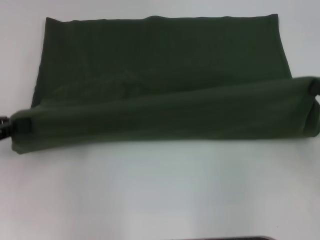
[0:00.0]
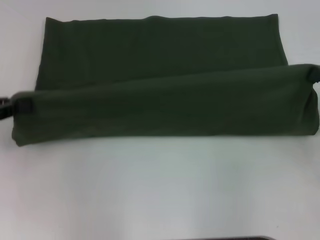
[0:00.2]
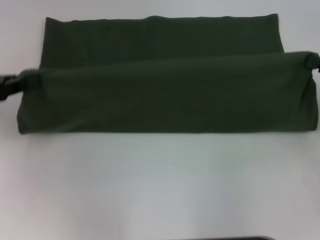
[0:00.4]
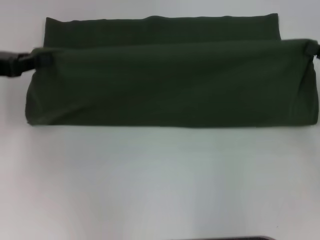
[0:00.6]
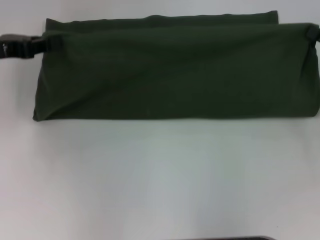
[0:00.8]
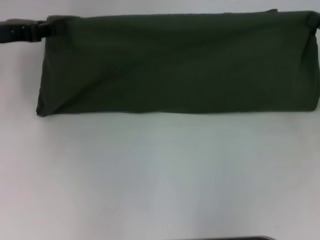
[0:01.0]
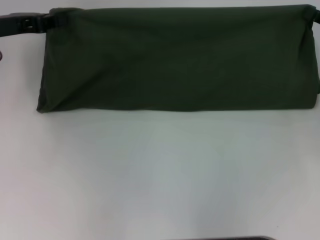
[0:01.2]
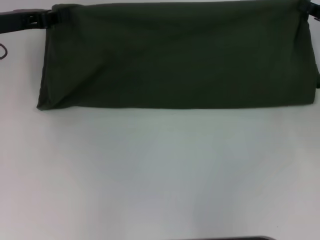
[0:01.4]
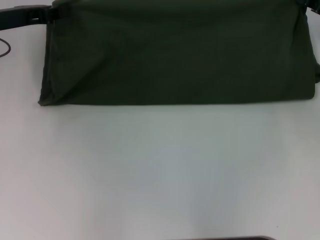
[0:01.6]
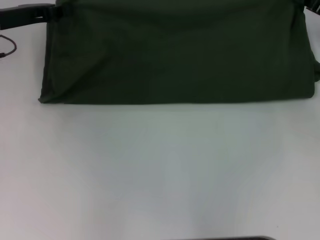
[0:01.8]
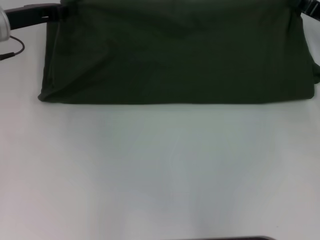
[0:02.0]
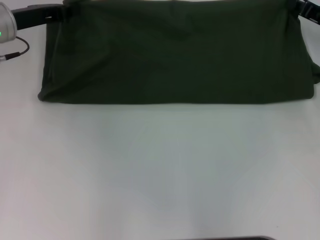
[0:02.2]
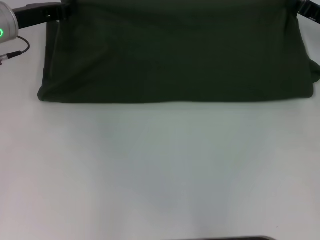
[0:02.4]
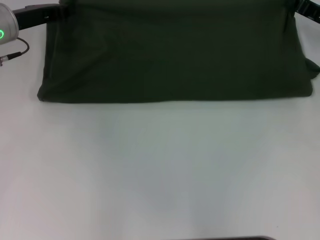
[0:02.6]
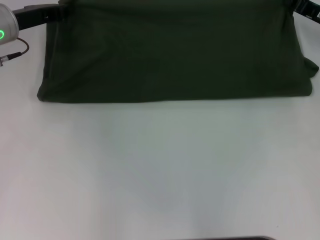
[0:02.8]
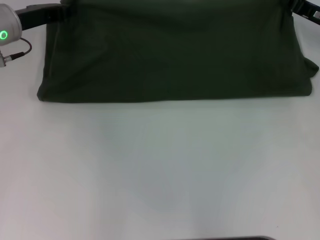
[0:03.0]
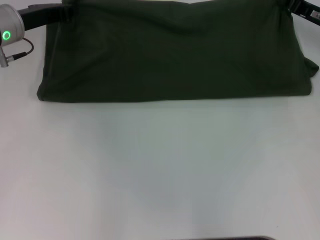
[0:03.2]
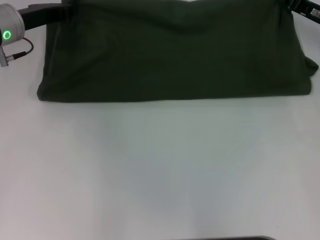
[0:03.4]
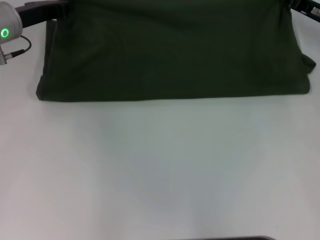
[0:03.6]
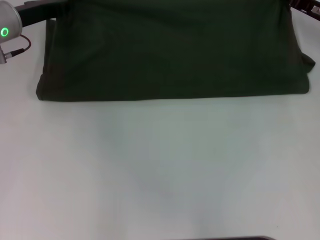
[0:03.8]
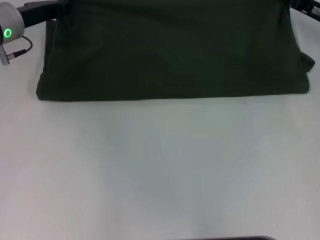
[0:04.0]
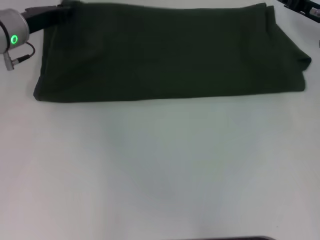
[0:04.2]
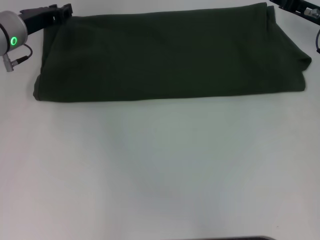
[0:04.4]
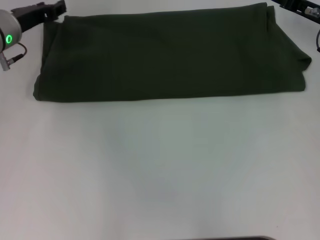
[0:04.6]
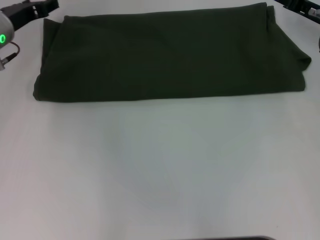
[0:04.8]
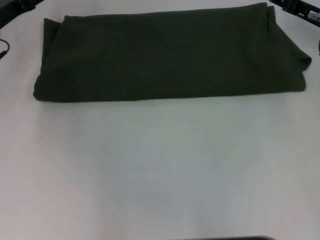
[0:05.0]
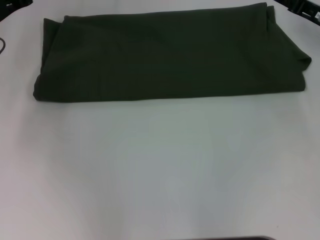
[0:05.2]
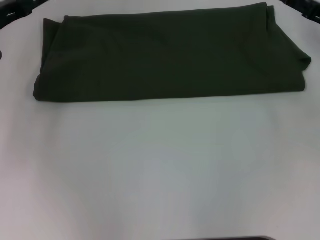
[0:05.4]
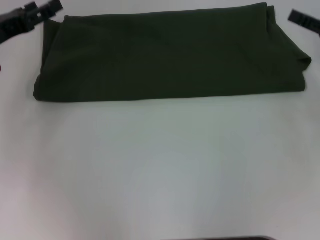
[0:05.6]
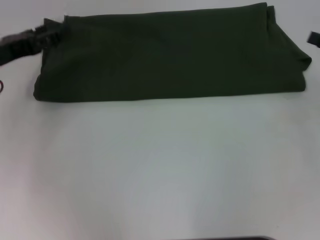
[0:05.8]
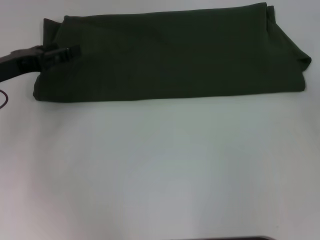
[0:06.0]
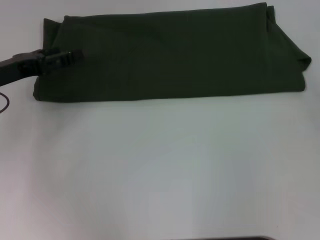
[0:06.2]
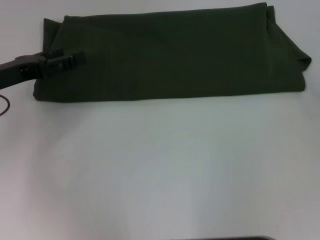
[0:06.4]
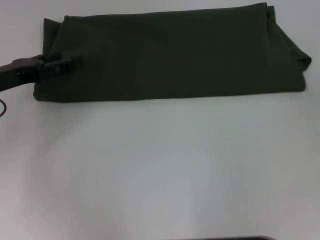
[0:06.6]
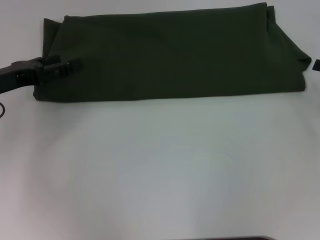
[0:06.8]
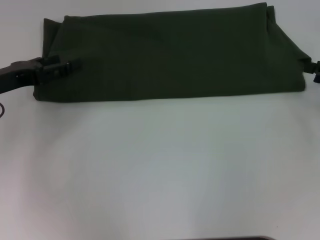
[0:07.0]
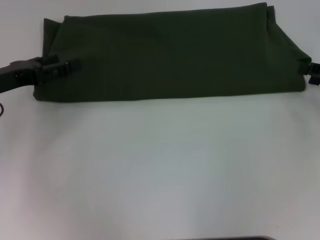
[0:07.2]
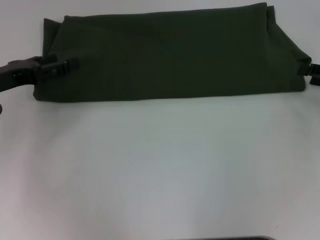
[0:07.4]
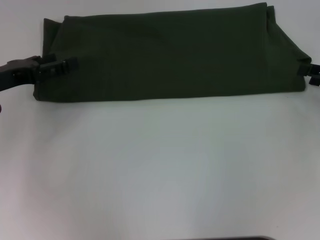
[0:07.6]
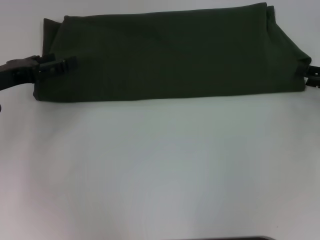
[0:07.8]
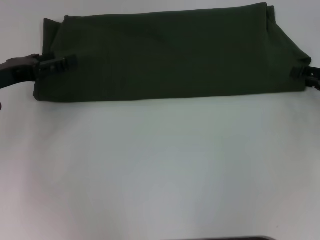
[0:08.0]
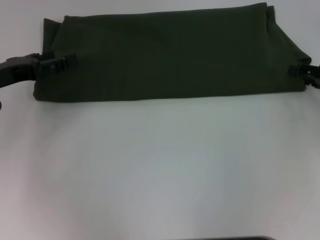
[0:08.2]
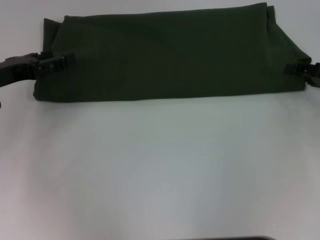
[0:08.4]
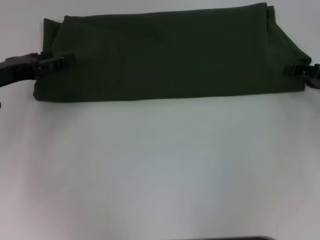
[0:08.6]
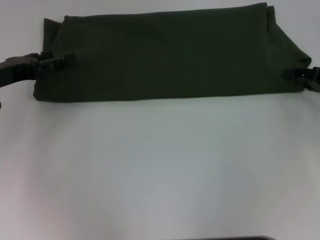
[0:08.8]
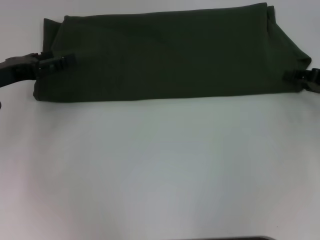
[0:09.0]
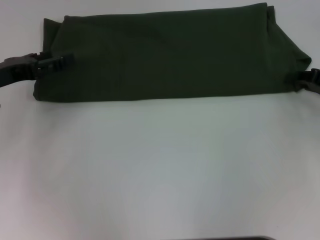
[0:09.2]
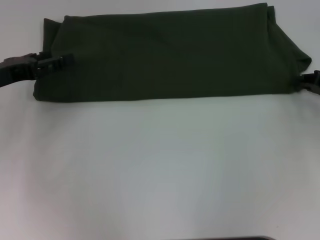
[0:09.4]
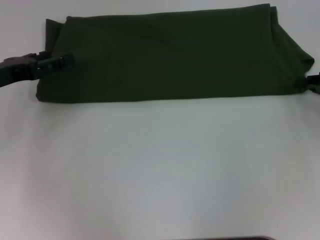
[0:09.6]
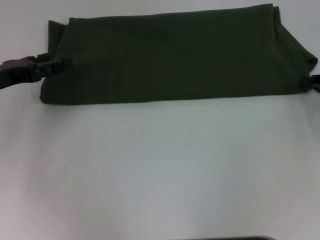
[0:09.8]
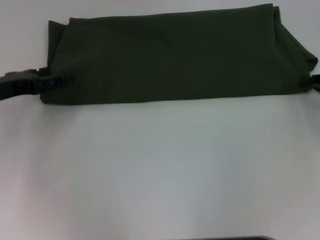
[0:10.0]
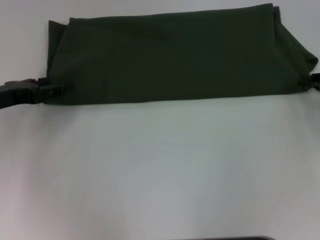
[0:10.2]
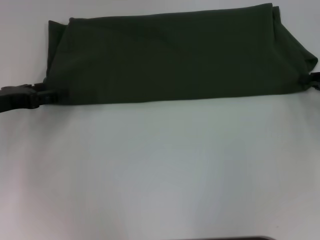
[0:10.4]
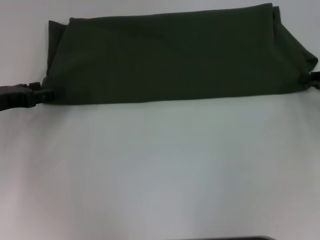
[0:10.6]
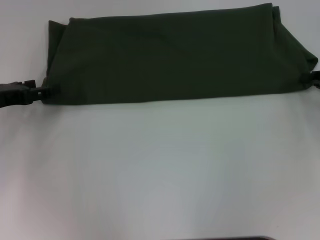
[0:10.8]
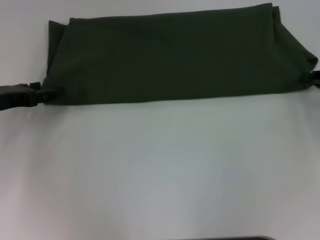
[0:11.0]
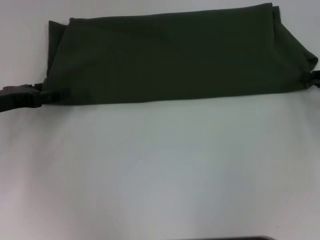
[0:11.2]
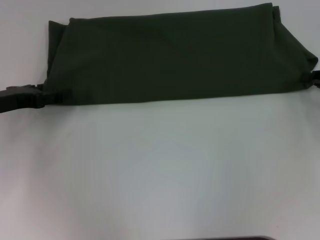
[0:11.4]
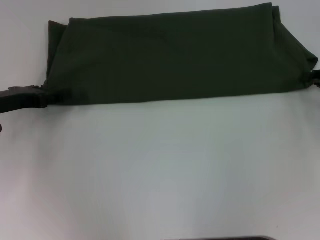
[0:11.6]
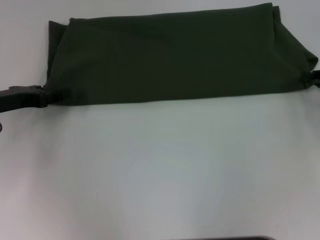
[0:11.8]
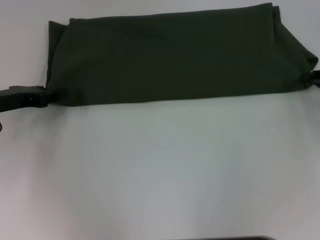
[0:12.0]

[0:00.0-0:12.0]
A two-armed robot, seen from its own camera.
Step, 0:00.0 to 0:04.2: Fold the clothes with your left hand.
Step, 0:00.0 to 0:04.2: Fold the clothes with your right hand.
0:00.0 to 0:01.6: The left gripper heads forward and to the right, covering about 20 cm. The right gripper is displaced forward by roughly 15 cm.
0:01.6 to 0:03.0: The grippers make only small movements.
0:03.0 to 0:04.4: The grippers stay close to where they were, moving slightly.
0:04.4 to 0:06.0: The left gripper travels backward and to the left by about 10 cm, and opens. Meanwhile the right gripper is displaced backward and to the right by some 15 cm, and opens up.
0:07.6 to 0:09.0: The grippers move only a little.
0:09.0 to 0:10.4: The right gripper closes up.

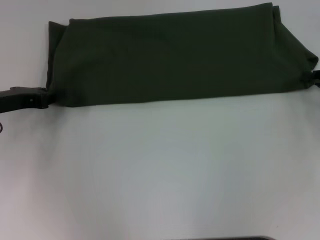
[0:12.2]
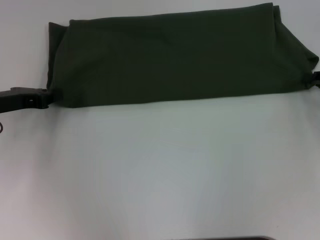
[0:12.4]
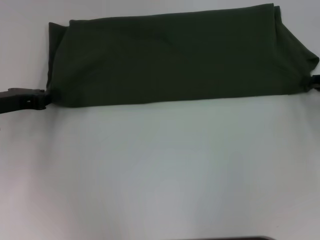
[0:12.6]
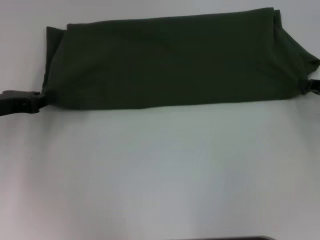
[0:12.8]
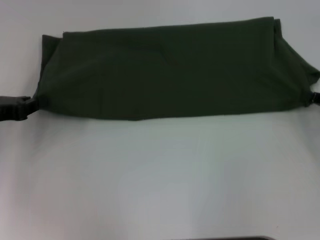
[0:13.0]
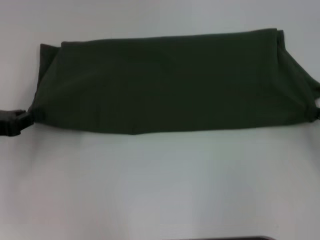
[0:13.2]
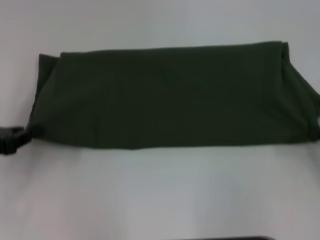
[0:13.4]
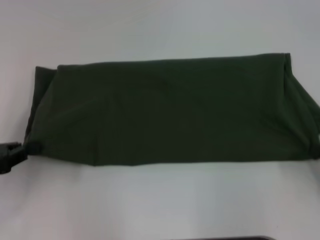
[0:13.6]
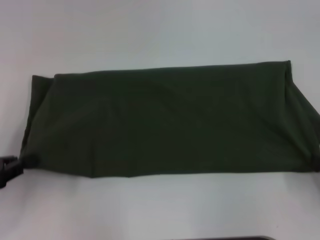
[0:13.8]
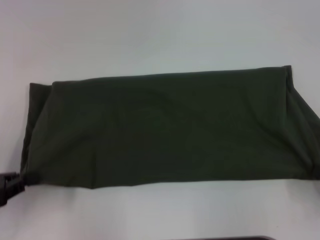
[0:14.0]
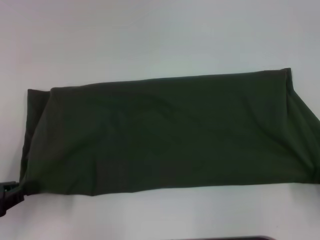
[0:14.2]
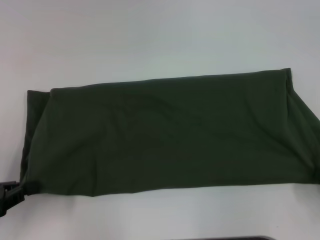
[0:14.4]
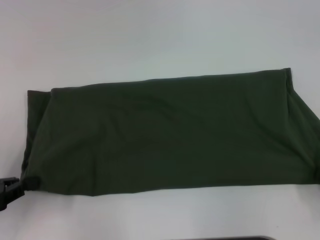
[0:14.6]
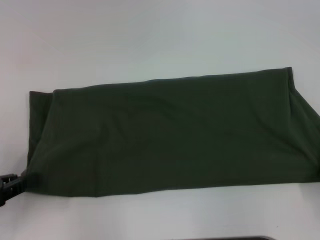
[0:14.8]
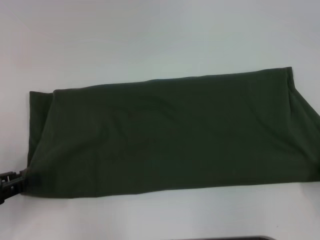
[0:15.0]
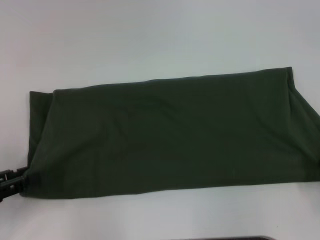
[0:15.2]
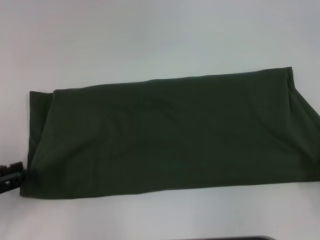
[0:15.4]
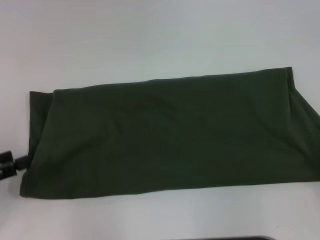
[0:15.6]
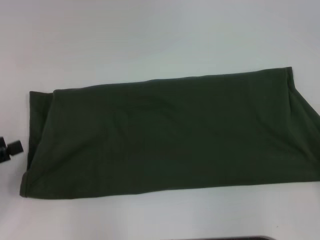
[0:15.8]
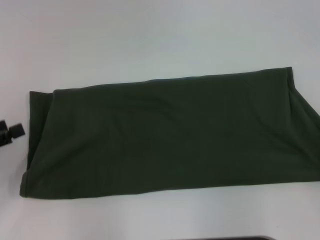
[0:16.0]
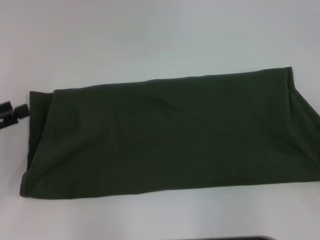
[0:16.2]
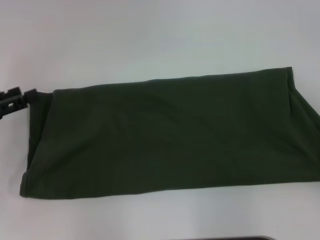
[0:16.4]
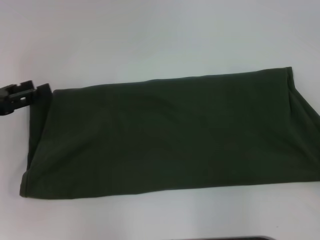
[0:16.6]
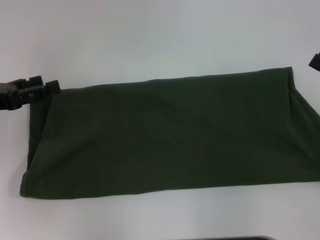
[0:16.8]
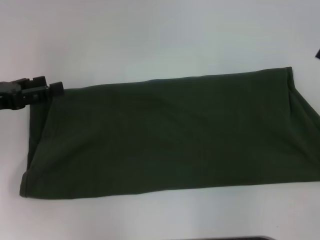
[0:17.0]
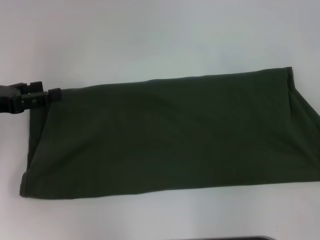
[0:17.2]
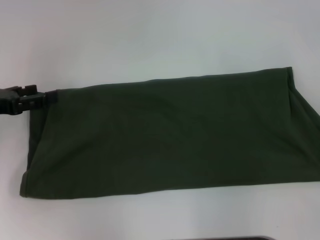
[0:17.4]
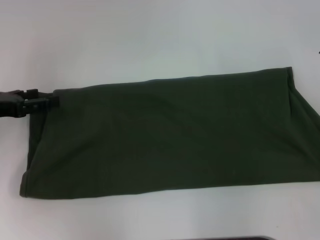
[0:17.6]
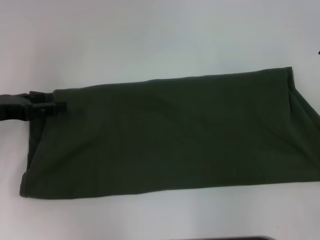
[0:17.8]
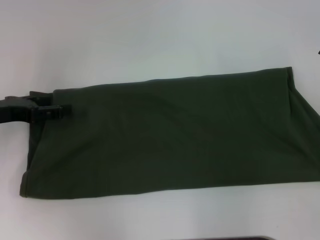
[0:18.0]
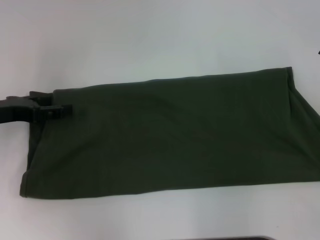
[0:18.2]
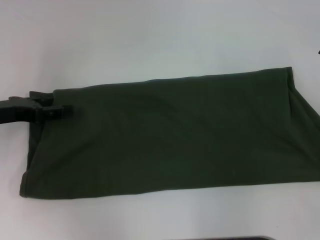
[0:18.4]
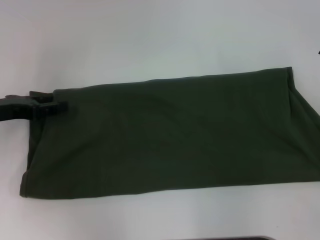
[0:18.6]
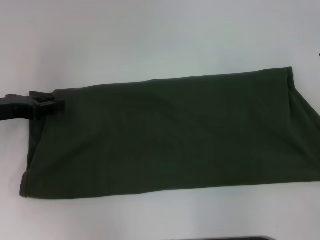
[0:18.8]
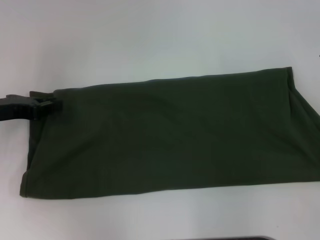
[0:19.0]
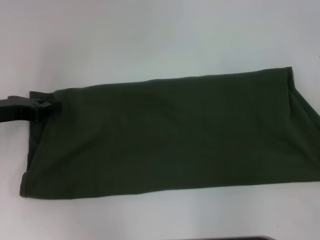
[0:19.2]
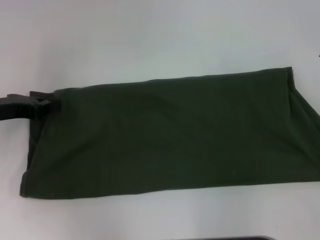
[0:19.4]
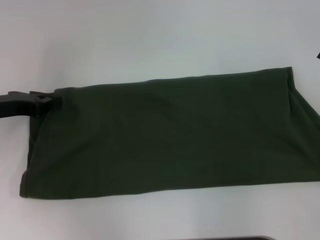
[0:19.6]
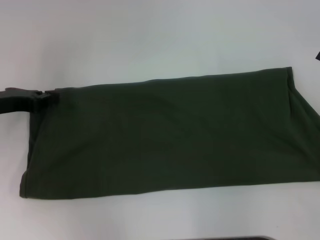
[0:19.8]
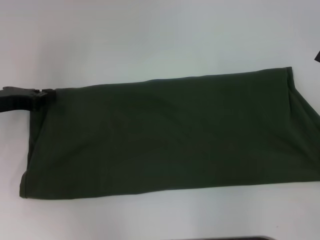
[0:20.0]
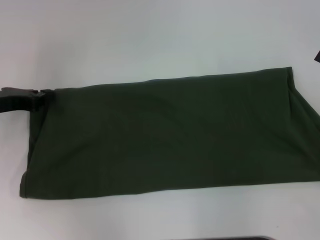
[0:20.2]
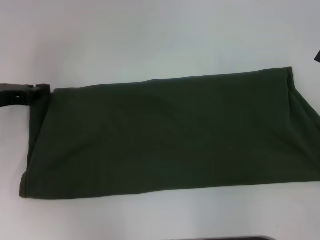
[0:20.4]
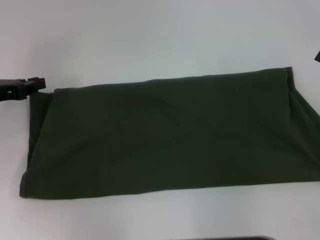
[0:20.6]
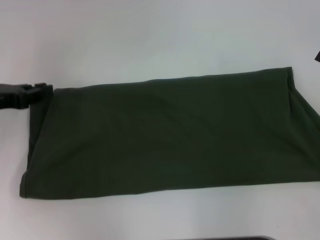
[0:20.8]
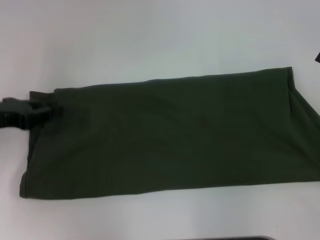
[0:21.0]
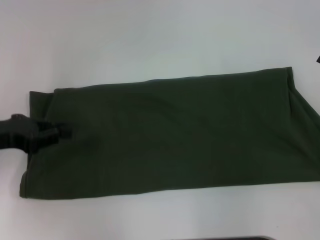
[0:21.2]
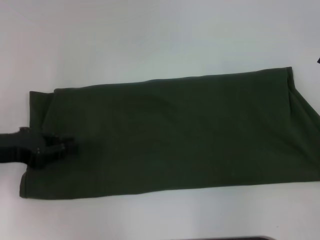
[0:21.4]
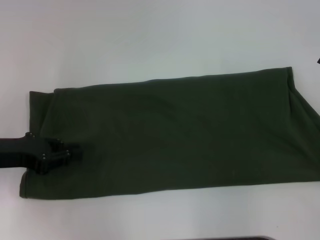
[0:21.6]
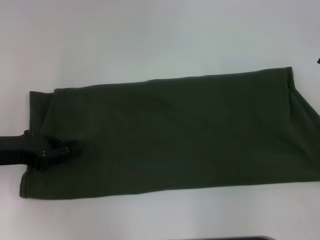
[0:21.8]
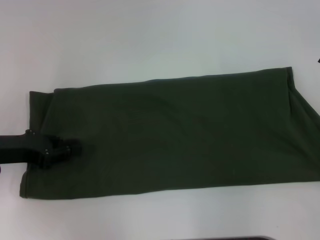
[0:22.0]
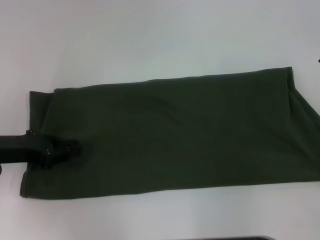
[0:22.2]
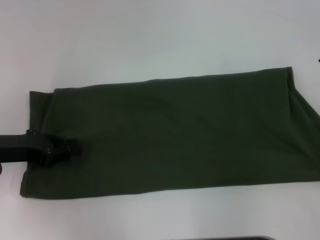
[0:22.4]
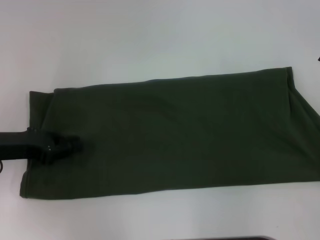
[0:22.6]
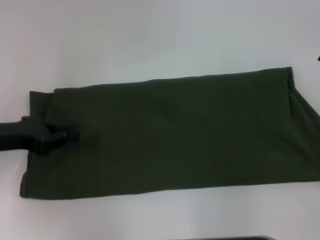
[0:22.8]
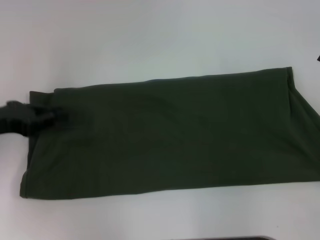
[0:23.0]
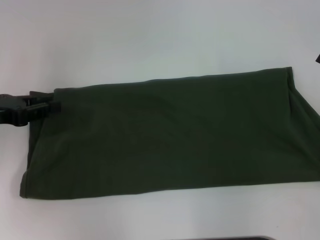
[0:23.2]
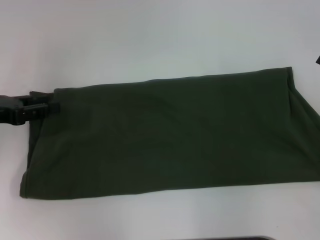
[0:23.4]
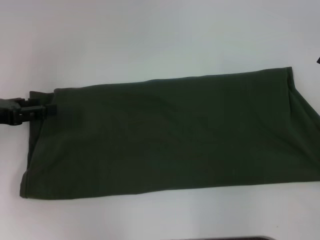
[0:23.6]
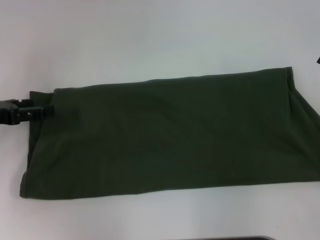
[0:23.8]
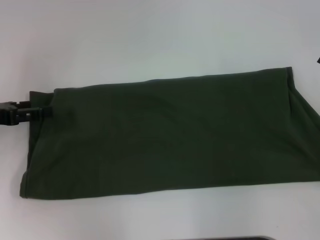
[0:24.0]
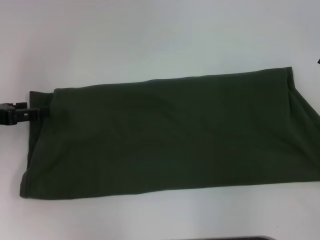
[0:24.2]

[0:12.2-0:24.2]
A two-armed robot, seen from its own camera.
Step, 0:12.2 to 0:15.2: Pull the clothes with your left hand.
Step, 0:12.2 to 0:15.2: Pull the clothes with your right hand.
0:12.2 to 0:13.8: The right gripper goes about 15 cm backward; the left gripper shifts some 15 cm backward and to the left, and closes.
0:13.8 to 0:15.2: There are only small adjustments of the grippers.
0:15.2 to 0:16.6: The left gripper goes some 10 cm forward, and opens.
0:16.6 to 0:18.2: The grippers stay close to where they were, moving slightly.
0:18.2 to 0:19.8: The left gripper closes its fingers.
0:19.8 to 0:21.2: The left gripper is displaced backward by some 5 cm.
0:21.2 to 0:22.6: The grippers move only a little.
0:22.6 to 0:24.2: The left gripper shifts by approximately 5 cm, and opens up.
